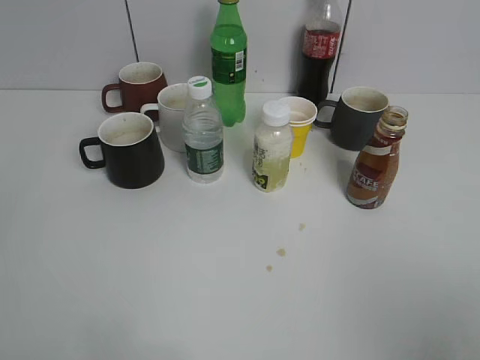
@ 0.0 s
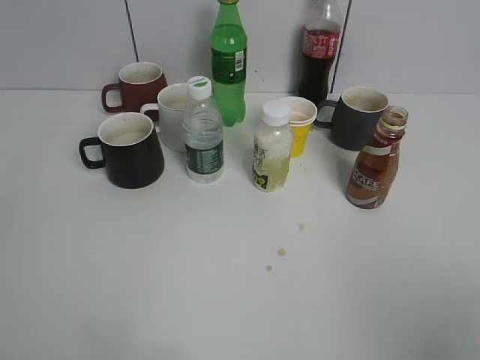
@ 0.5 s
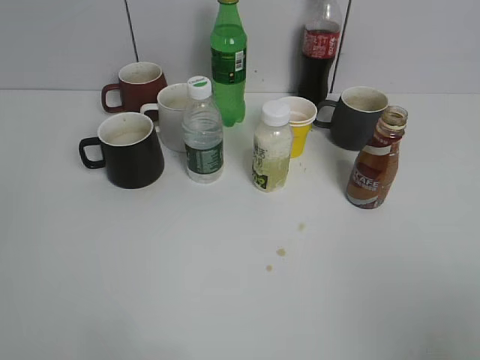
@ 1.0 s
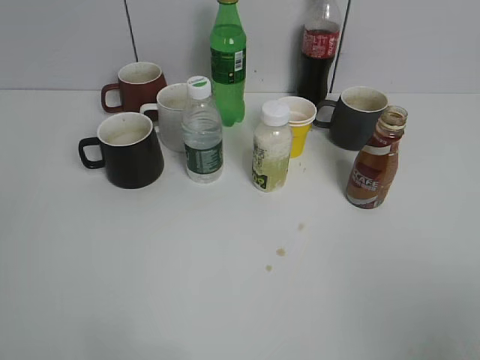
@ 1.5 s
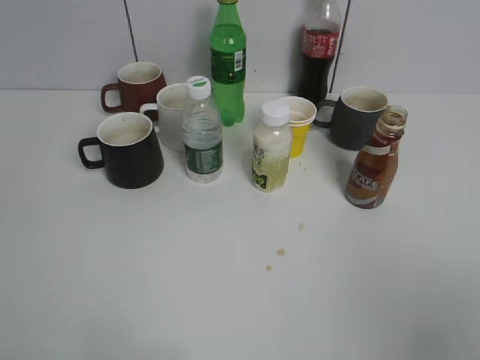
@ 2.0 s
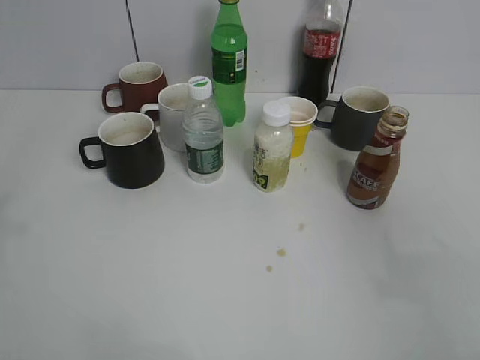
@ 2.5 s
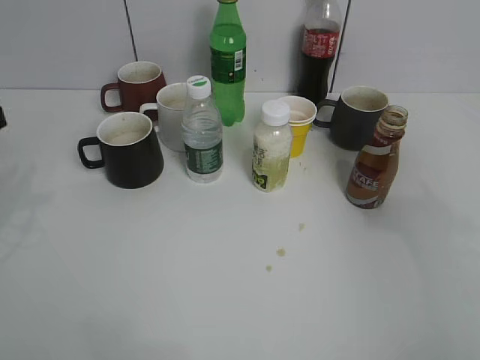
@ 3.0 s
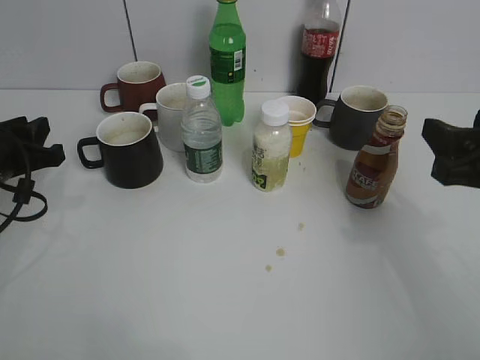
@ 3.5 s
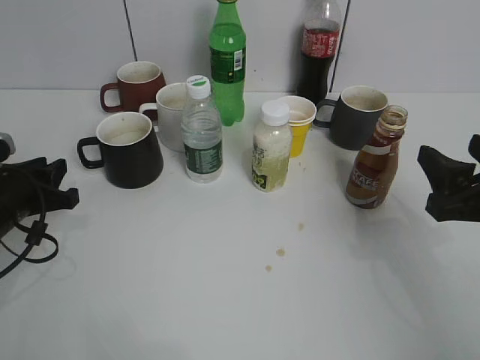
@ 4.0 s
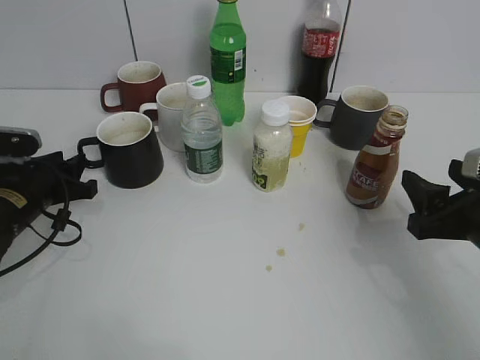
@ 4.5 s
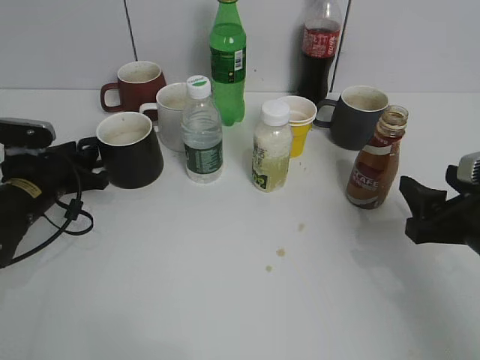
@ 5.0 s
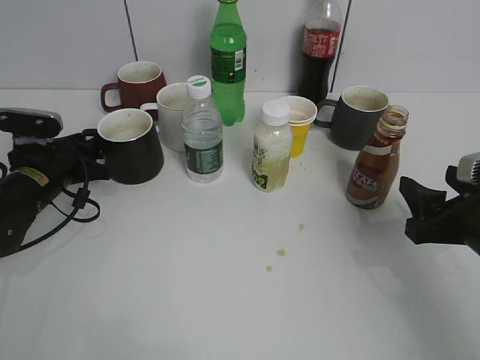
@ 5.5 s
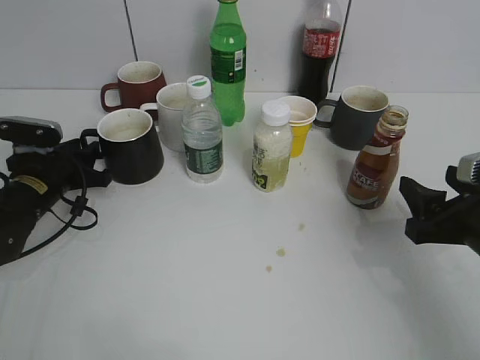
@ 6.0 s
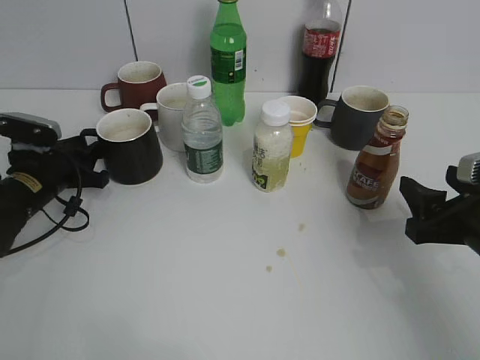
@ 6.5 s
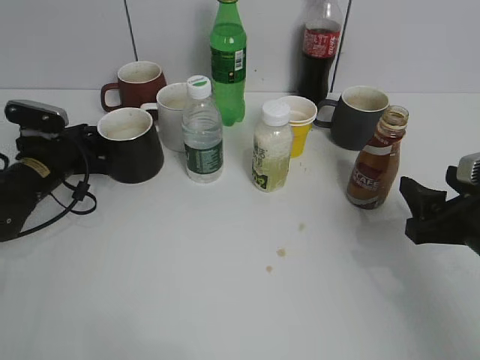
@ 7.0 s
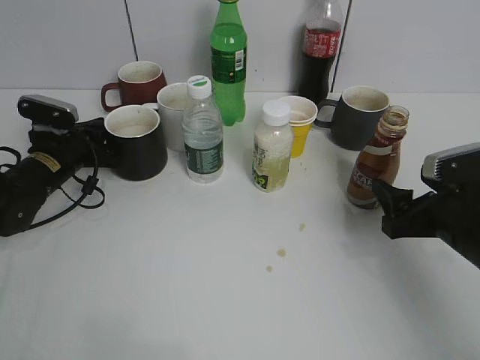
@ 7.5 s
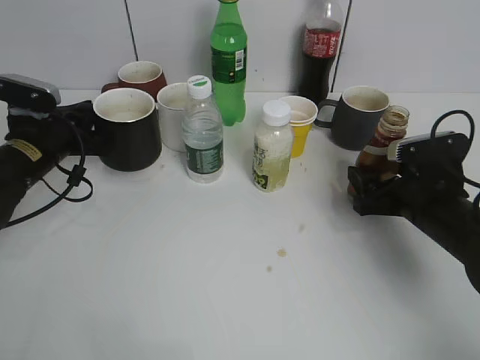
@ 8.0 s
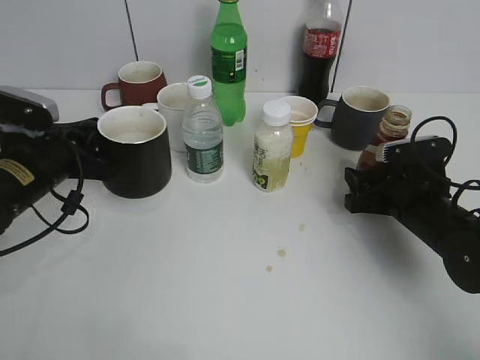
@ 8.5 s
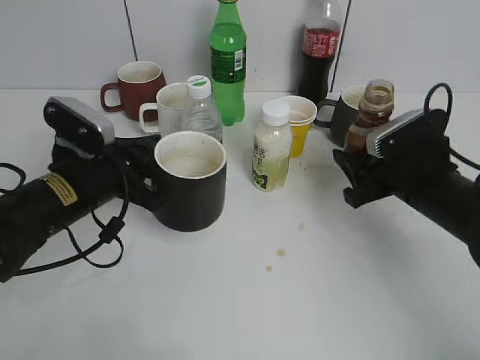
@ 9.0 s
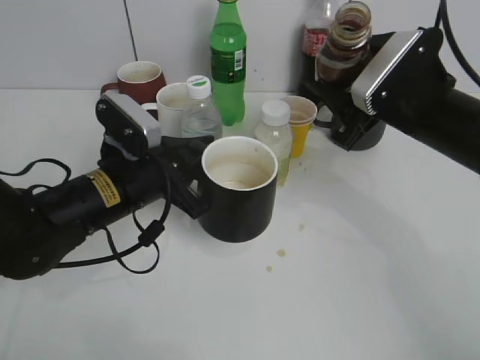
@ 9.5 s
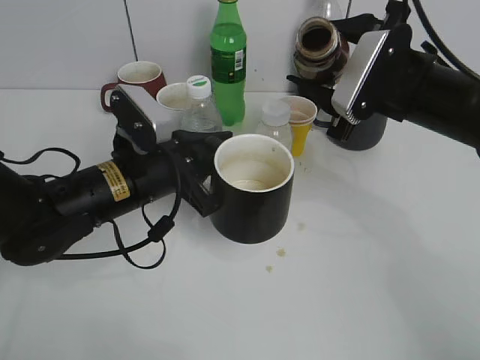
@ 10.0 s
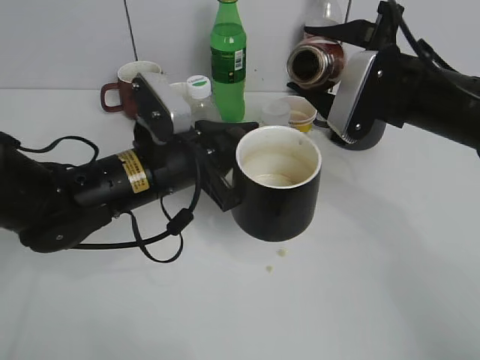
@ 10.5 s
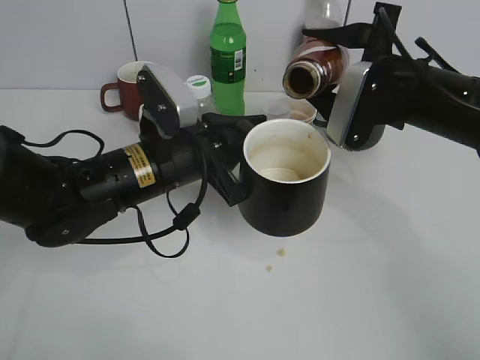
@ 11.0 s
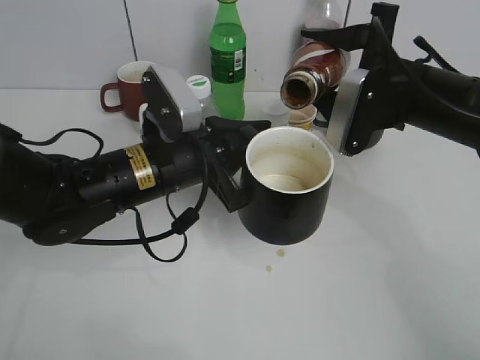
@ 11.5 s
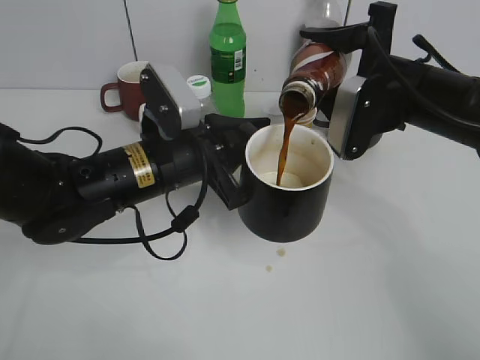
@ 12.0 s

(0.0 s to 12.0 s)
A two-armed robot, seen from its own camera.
Step, 1.5 s - 7.0 s: Grasp the black cup with left gripper.
Step, 8.0 s - 8.5 s: Lift the black cup with left gripper.
2.0 s - 4.0 s: The right gripper moves forward and downward, approximately 20 cm; the left gripper goes approximately 35 cm forward and downward.
4.0 s - 6.0 s: The left gripper shifts approximately 5 cm forward.
6.0 s - 8.0 s: The left gripper shifts about 5 cm upward, and closes up, while the right gripper heads forward, covering about 10 cm, and opens.
8.0 s - 10.0 s: The left gripper heads to the right and backward, covering roughly 15 cm. Meanwhile the right gripper goes approximately 15 cm upward and to the left, and closes its fingers.

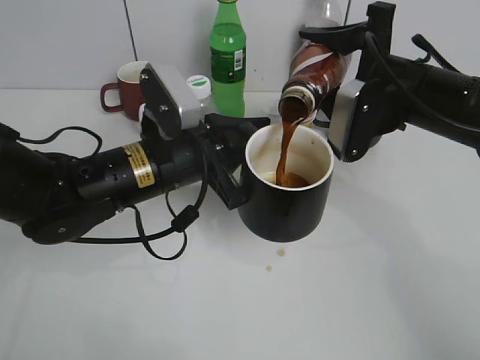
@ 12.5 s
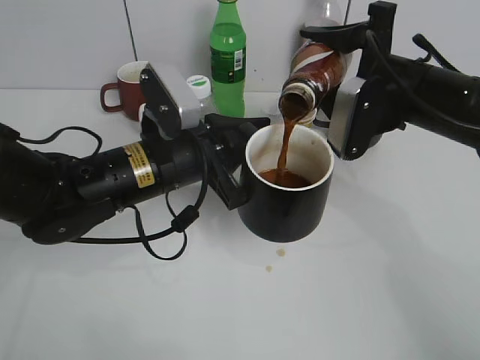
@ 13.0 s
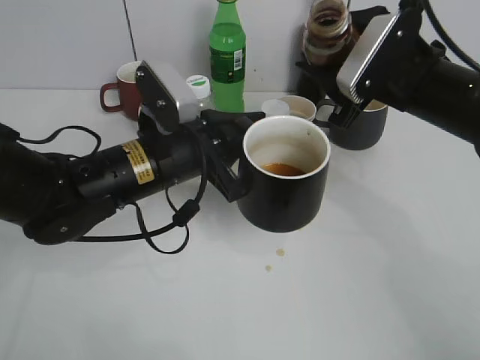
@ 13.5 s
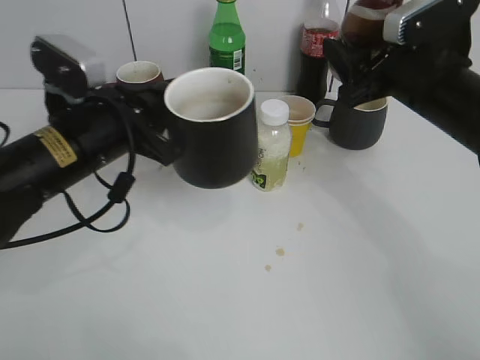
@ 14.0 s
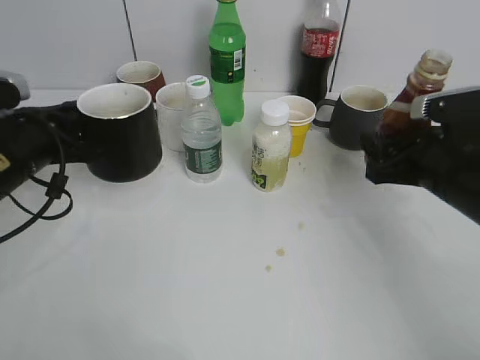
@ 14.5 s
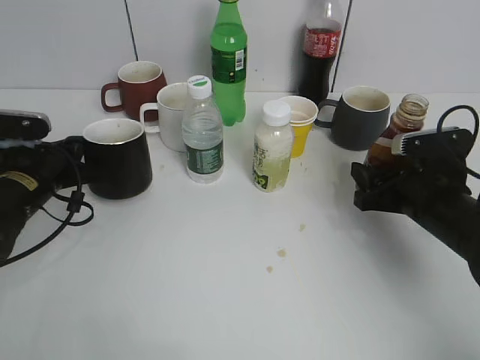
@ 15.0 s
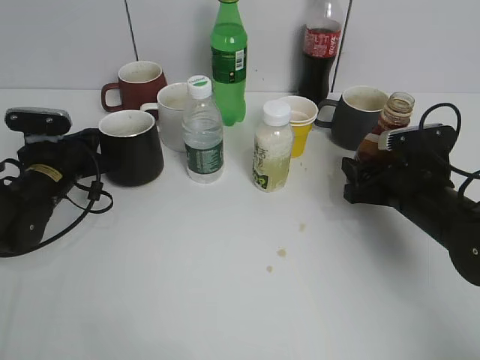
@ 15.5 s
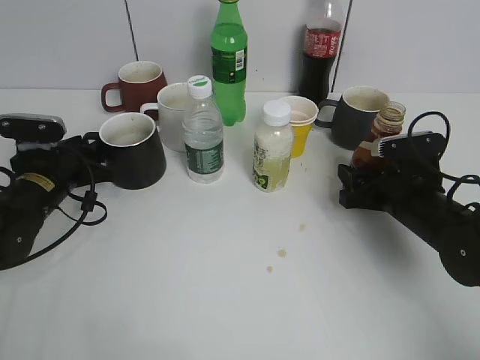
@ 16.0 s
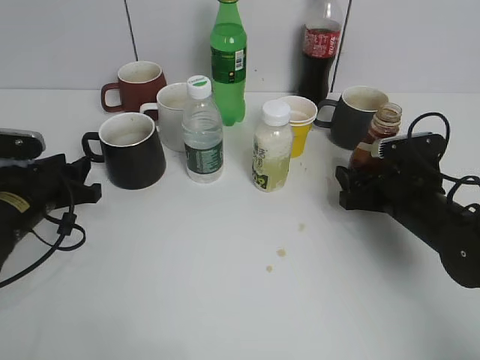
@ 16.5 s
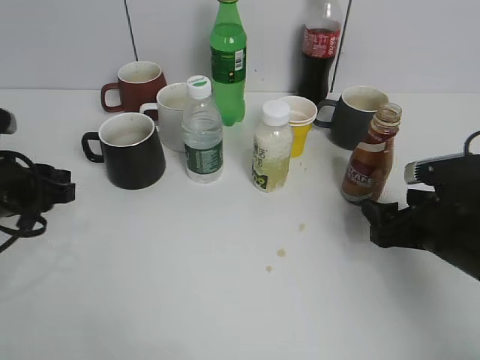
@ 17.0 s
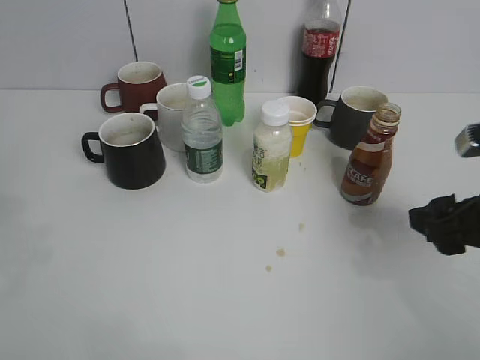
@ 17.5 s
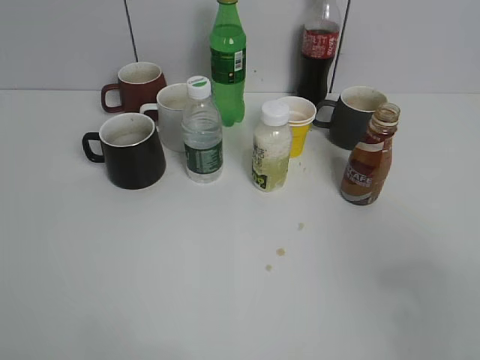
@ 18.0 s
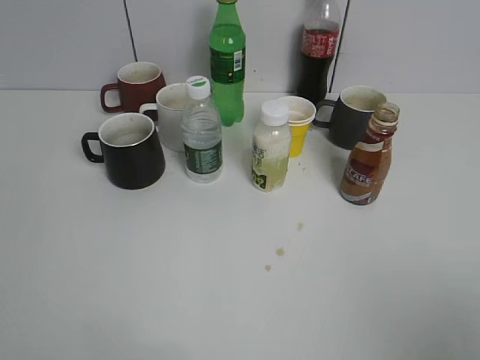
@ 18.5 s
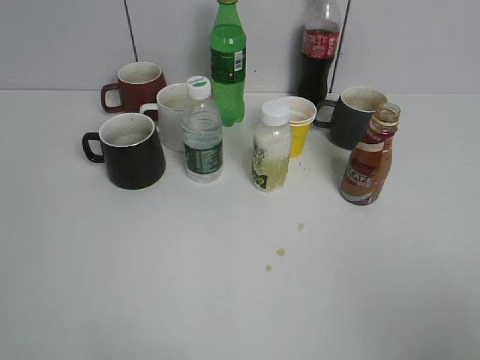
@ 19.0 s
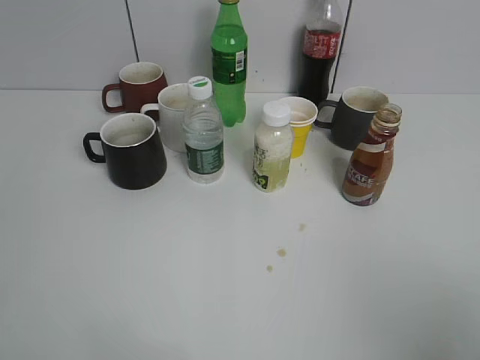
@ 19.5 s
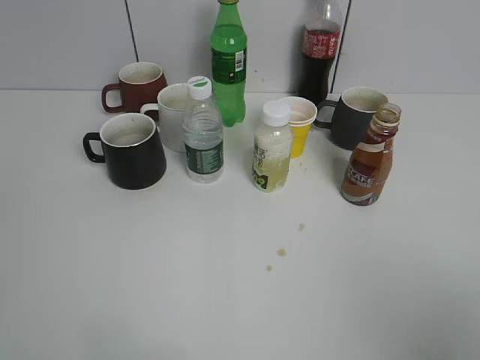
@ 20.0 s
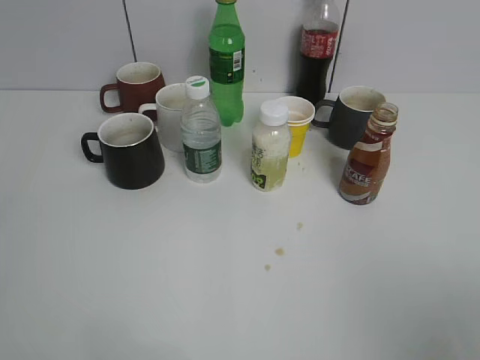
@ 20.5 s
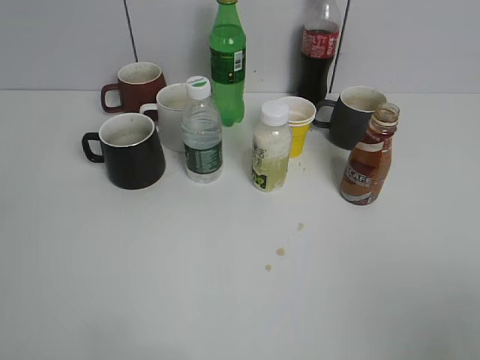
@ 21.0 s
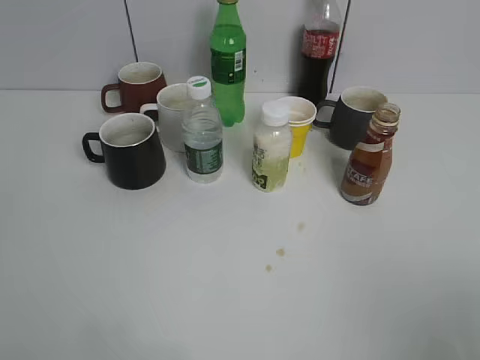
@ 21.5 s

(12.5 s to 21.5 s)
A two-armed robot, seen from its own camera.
Step, 14.0 s - 16.0 s: Place the black cup on the table with left gripper.
12.5 s - 14.5 s: The left gripper heads to the left, covering roughly 15 cm. Meanwhile the right gripper travels downward and to the right by some 10 cm.
14.5 s - 17.0 s: The right gripper travels downward by about 5 cm, and opens its fingers; the left gripper opens.
17.0 s - 19.5 s: The grippers both shift backward and upward by roughly 30 cm.
19.5 s - 21.5 s: The grippers move only a little.

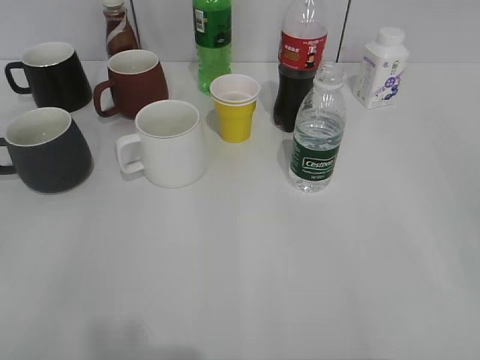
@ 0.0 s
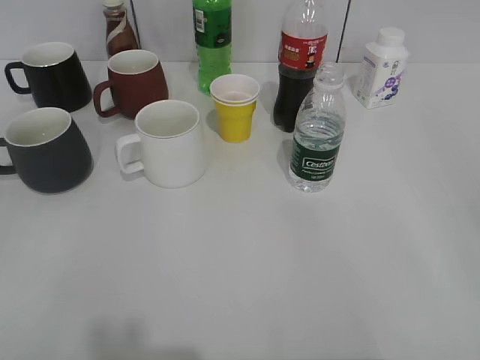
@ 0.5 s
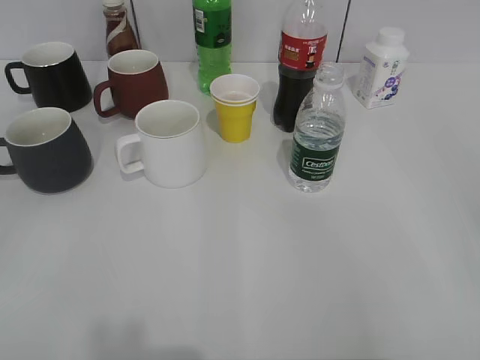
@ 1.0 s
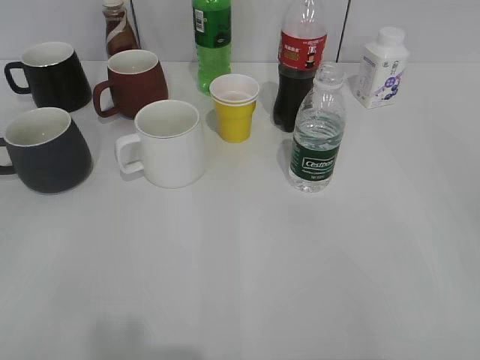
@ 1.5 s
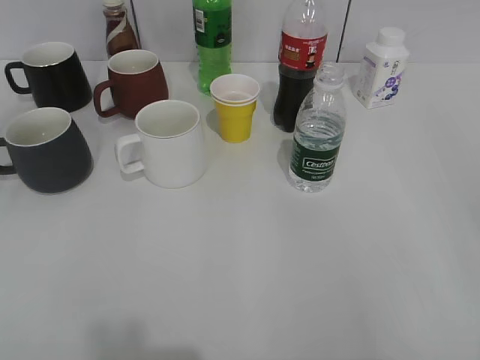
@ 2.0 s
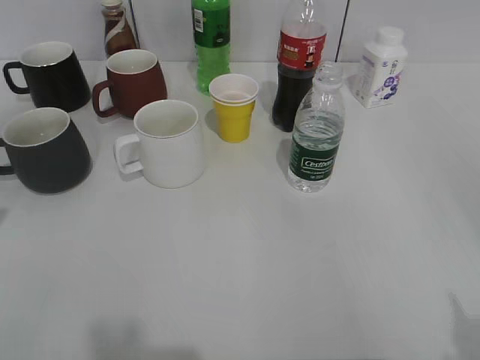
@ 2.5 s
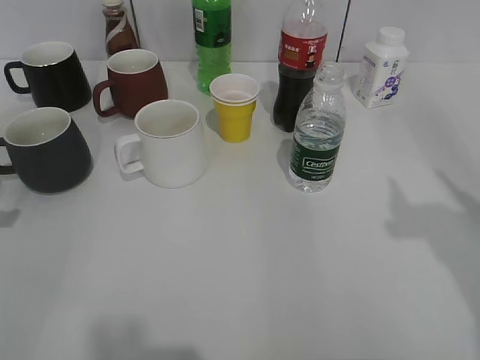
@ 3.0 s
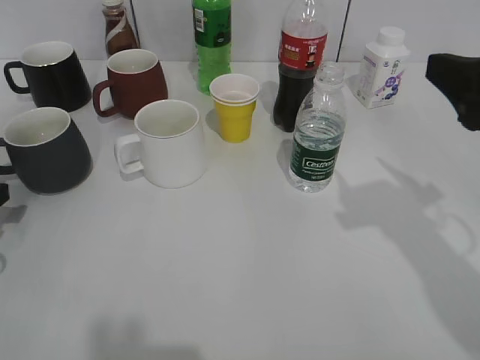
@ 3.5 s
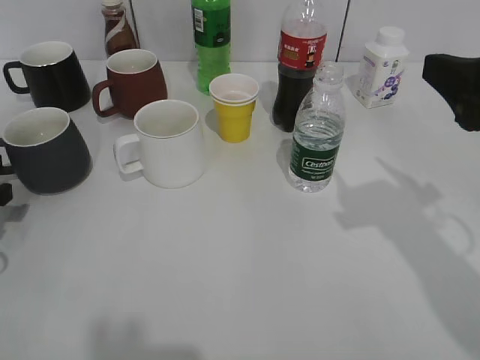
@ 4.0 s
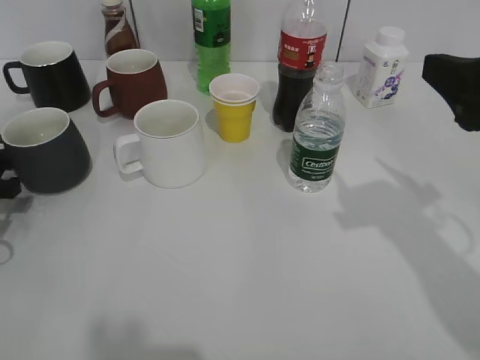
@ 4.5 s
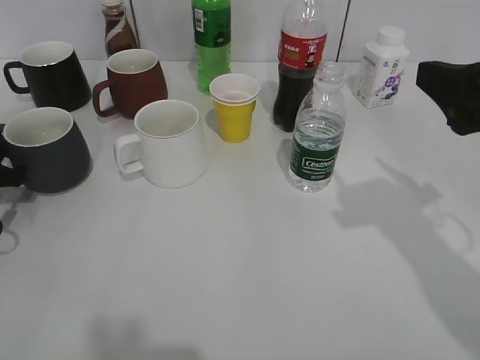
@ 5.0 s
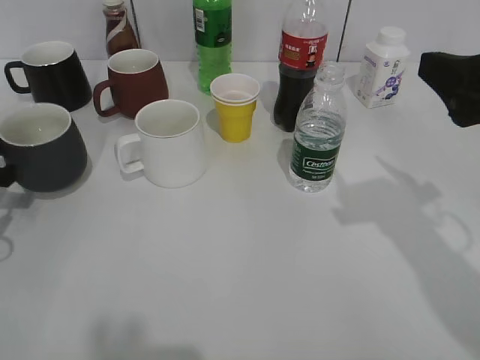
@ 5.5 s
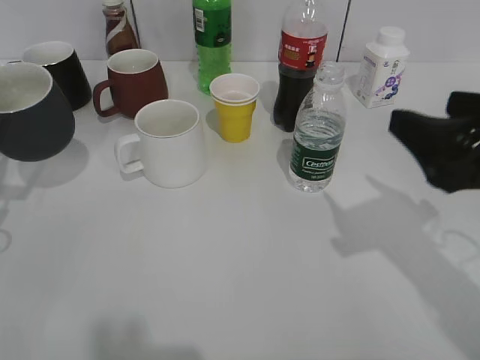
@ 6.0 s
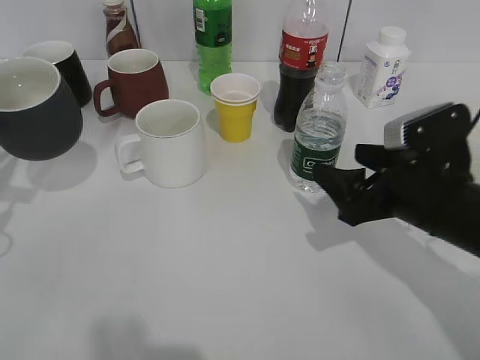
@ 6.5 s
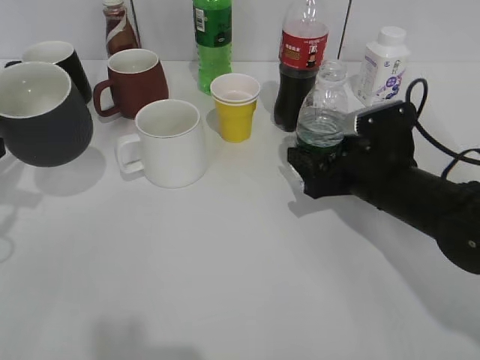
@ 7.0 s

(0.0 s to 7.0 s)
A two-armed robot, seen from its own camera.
Step, 2.0 s - 4.5 s: Grasp the black cup with left gripper.
Step, 5.0 s - 6.0 s: Lift the black cup with left gripper.
Step, 6.5 s - 7.0 s: Grasp the bottle with water with right gripper.
2.0 s - 3.5 s: The right gripper moves forward, roughly 20 cm. The left gripper shifts approximately 30 cm downward and forward.
3.5 s - 5.0 s: The grippers stay close to where they were, moving slightly.
5.0 s - 7.0 s: The right gripper heads downward and forward, covering approximately 20 cm, while the left gripper travels upward by some 5 cm.
